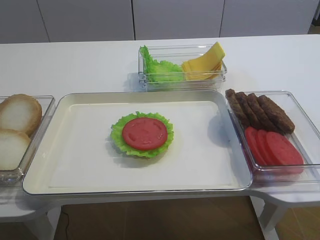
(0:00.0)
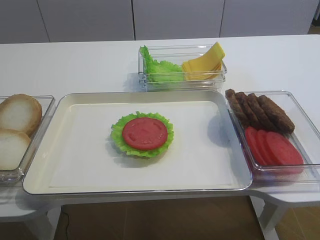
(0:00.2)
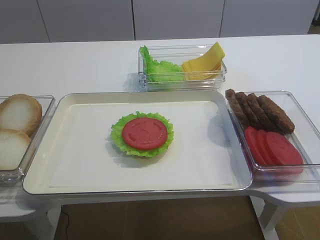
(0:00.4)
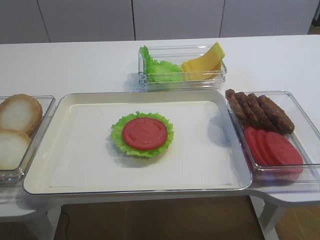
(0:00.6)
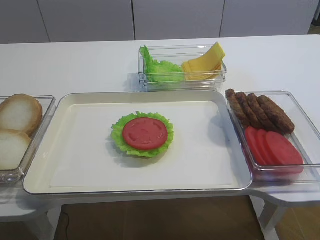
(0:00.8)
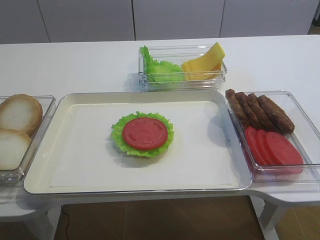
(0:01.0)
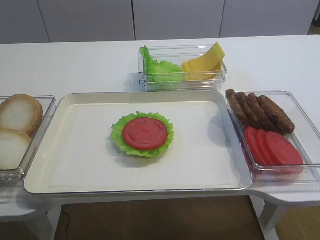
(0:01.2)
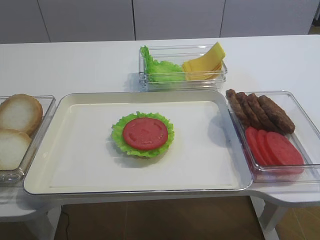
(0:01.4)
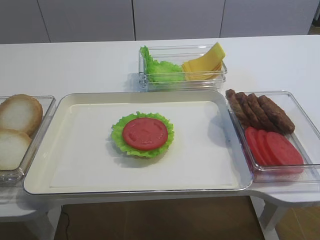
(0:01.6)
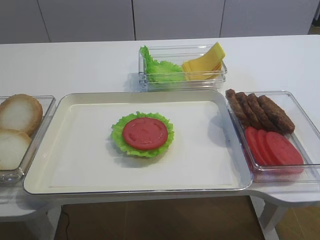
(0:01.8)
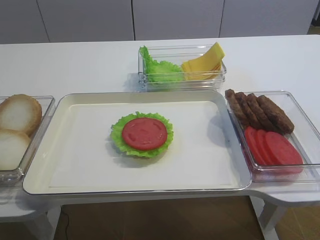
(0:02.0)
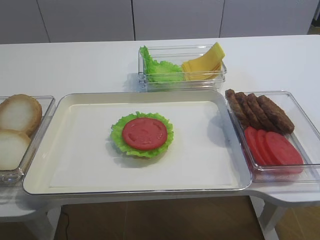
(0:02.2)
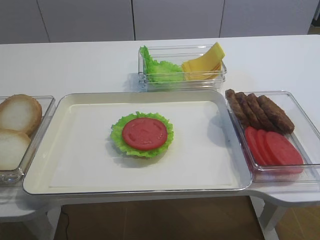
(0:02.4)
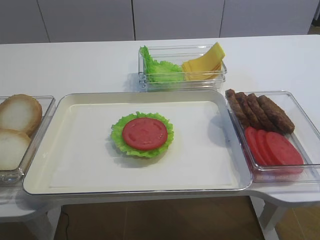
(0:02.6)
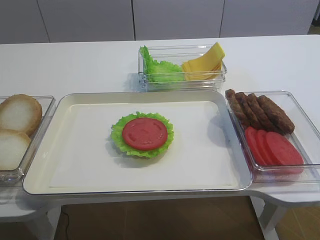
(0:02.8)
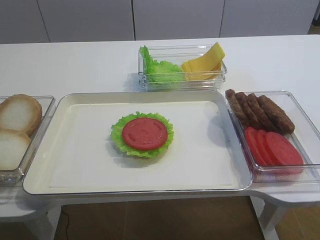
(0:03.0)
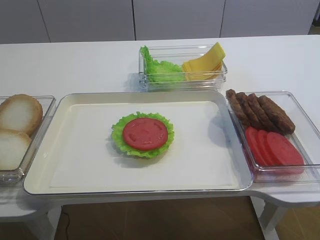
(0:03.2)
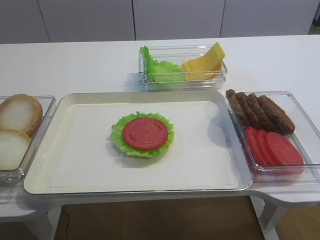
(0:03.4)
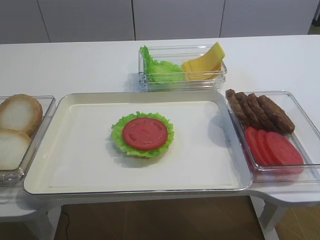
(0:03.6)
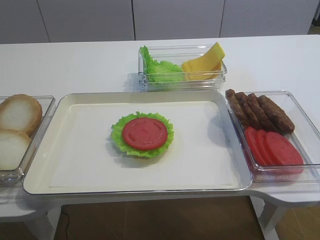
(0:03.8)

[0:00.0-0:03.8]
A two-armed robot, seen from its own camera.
0:00.0 to 0:01.2: The right gripper is displaced backward by approximately 25 cm.

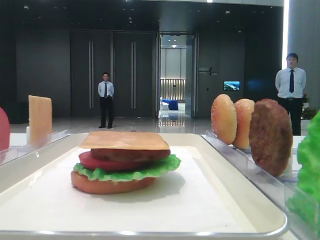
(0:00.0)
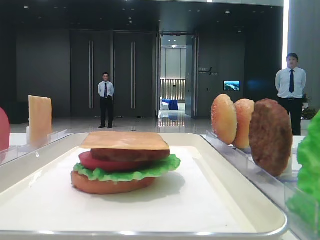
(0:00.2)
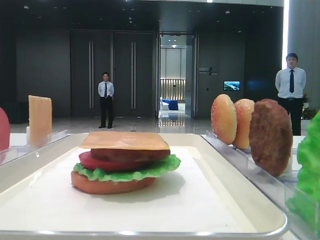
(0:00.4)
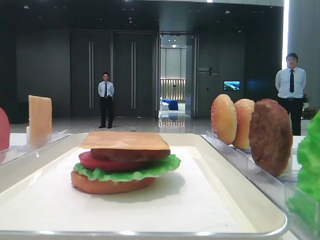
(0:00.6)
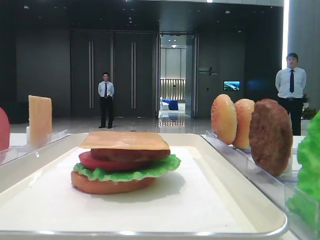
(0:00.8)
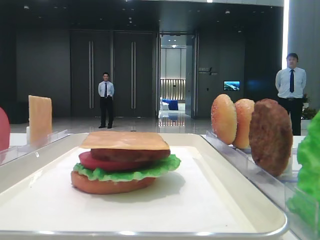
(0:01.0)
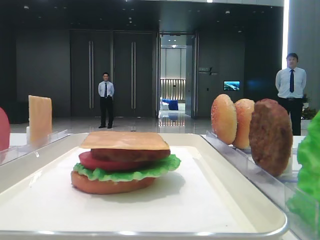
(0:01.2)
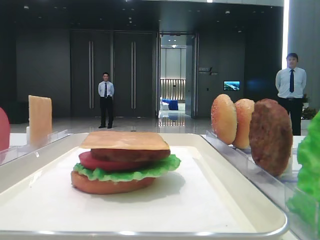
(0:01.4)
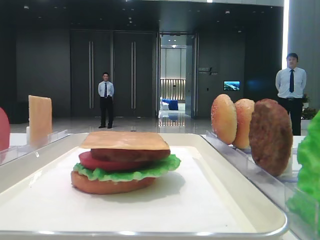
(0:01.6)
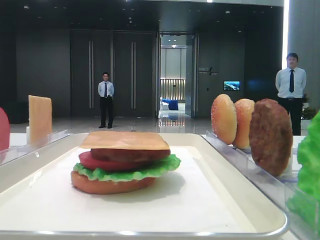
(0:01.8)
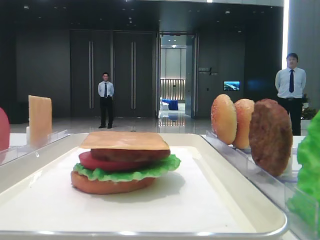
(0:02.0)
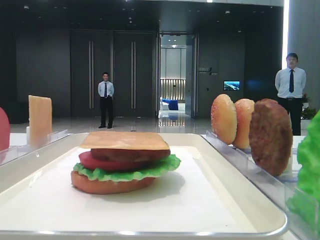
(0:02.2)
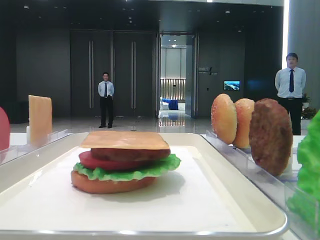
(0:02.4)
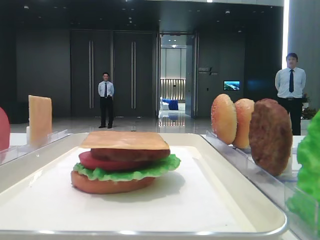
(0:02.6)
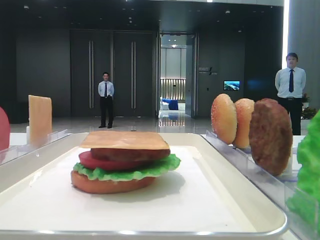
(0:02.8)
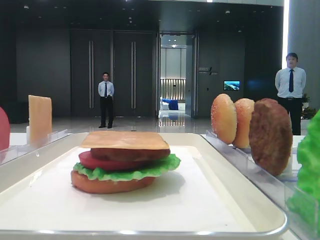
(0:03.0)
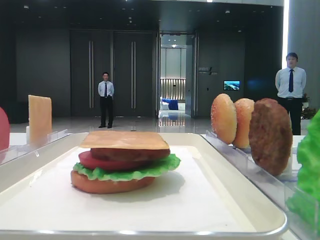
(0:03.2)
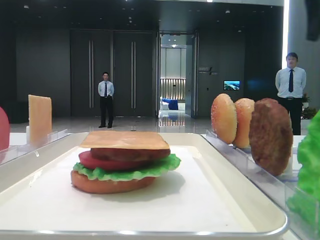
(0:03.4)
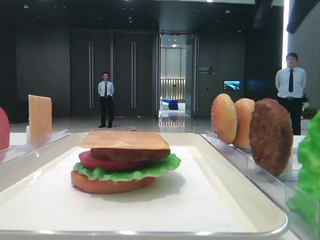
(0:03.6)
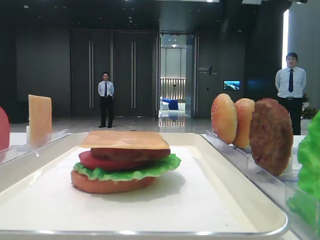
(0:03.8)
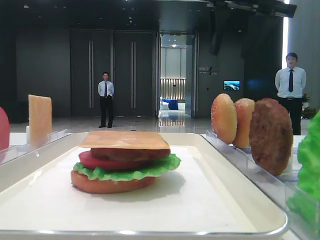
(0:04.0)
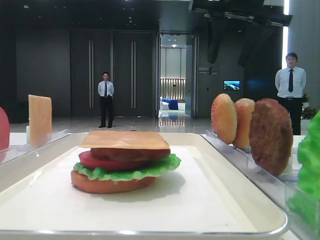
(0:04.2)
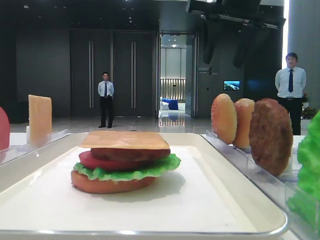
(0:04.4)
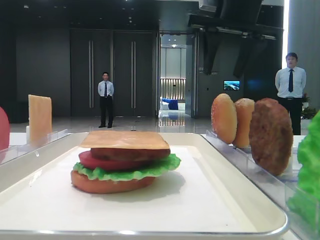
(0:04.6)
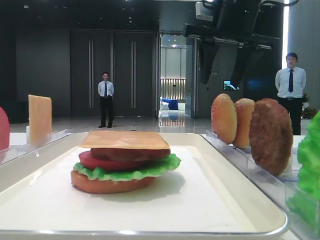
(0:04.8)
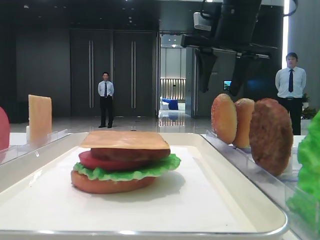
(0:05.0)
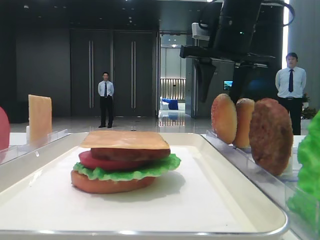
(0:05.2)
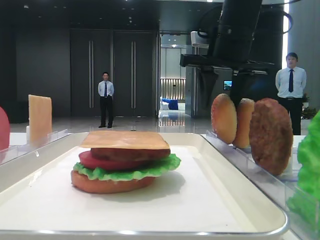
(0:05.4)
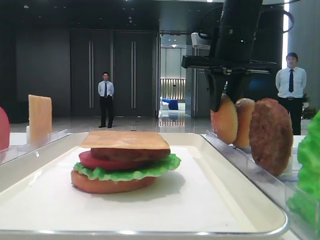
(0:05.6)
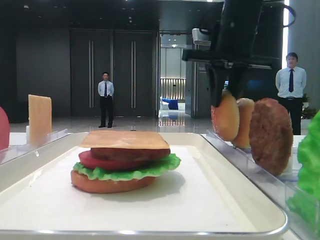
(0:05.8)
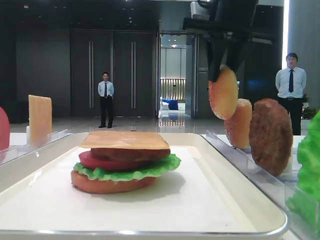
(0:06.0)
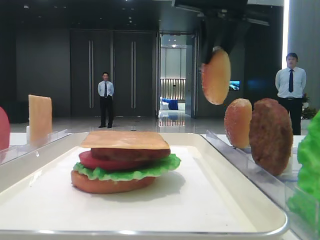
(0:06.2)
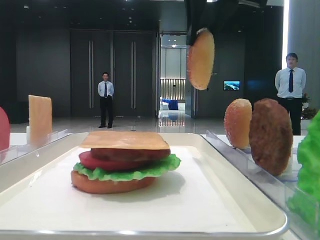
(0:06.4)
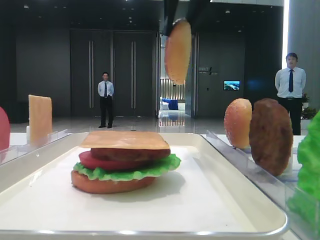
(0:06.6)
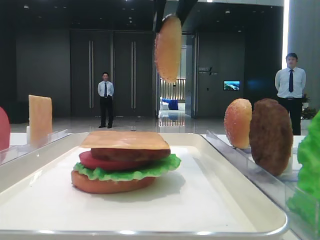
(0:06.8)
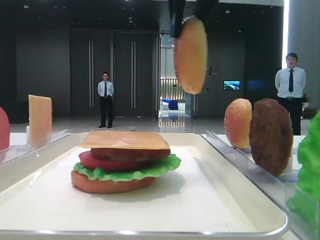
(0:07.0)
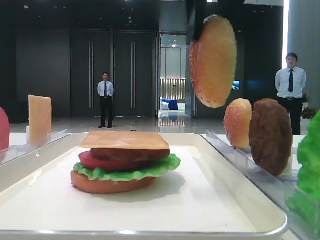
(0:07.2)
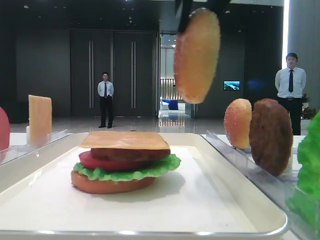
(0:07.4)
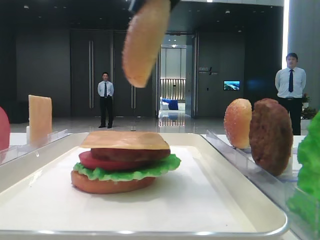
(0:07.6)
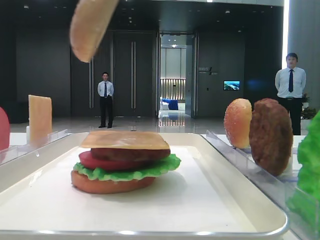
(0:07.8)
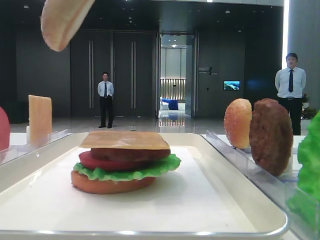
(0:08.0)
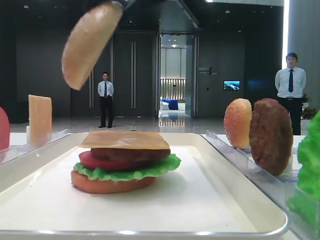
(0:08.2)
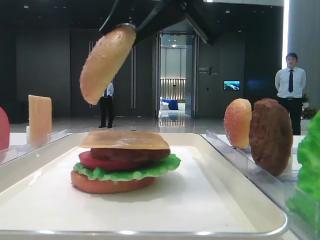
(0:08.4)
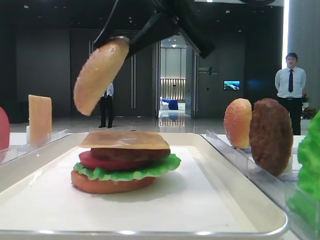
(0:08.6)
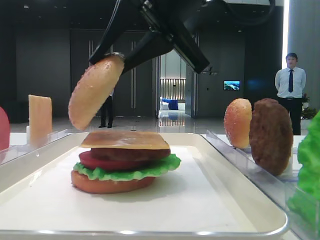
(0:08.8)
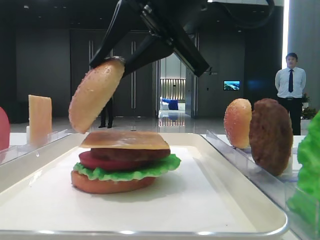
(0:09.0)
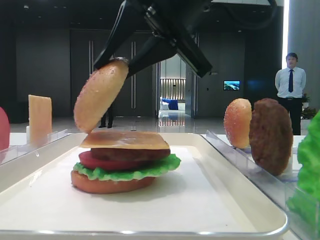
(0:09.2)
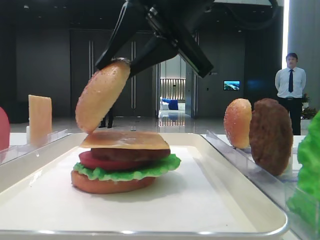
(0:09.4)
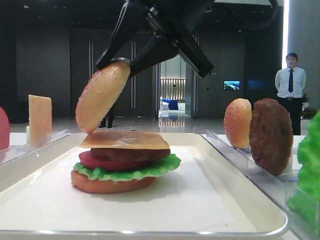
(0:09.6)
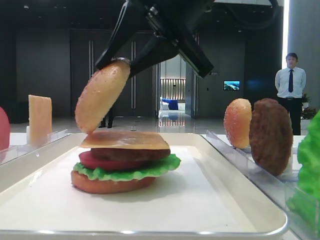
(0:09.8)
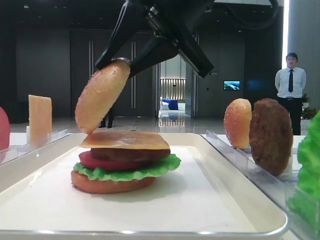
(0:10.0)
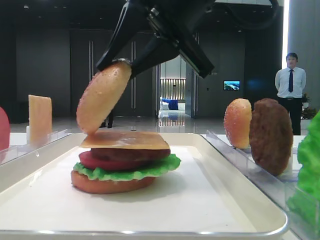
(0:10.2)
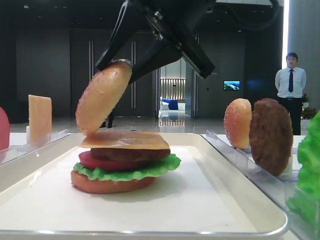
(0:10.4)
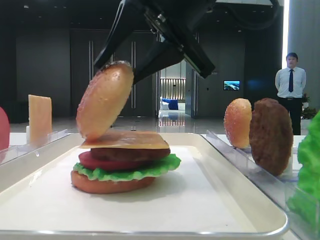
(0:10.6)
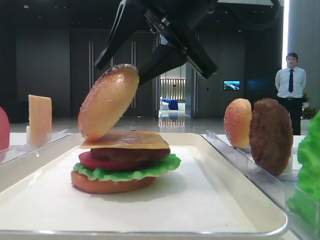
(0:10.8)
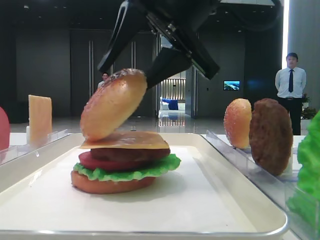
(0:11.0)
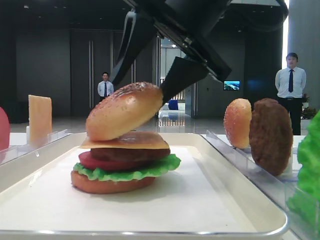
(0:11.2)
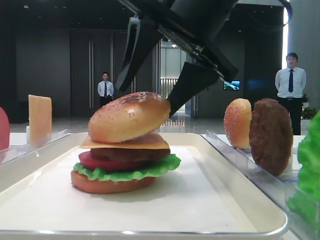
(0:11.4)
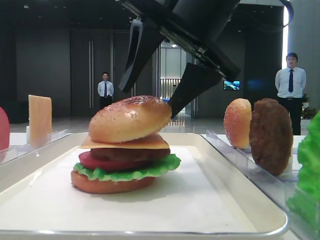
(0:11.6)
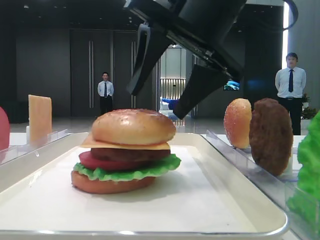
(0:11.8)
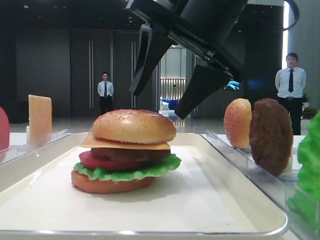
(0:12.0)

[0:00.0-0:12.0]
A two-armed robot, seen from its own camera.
Step, 0:00.0 to 0:05.6: Pick up the top bread slice with the right hand.
Step, 0:05.8 to 0:11.6: Place the top bread slice on the cheese with the right hand.
0:03.0 to 0:04.4: The right gripper goes some 20 cm to the left.
0:04.4 to 0:06.0: The right gripper closes up.
0:06.0 to 0:07.6: The right gripper moves backward and to the left, some 15 cm.
0:07.6 to 0:09.0: The right gripper is displaced downward by about 10 cm.
0:09.0 to 0:10.4: The two grippers keep their place.
0:10.4 to 0:12.0: The right gripper opens up.

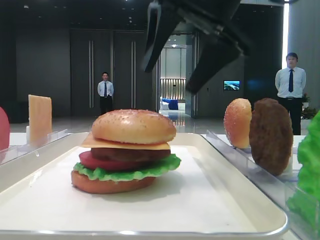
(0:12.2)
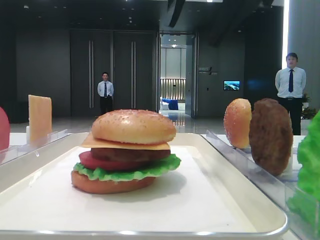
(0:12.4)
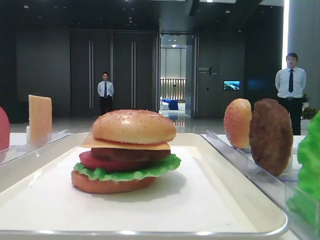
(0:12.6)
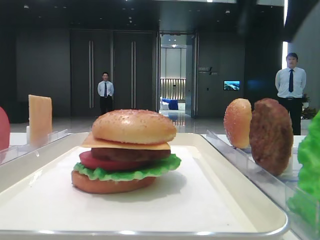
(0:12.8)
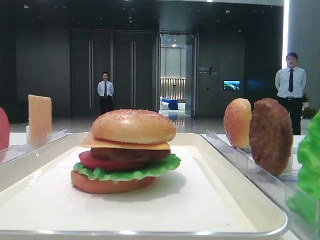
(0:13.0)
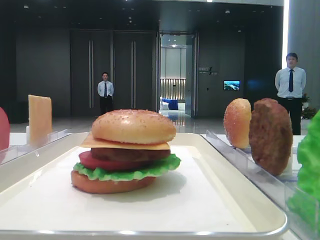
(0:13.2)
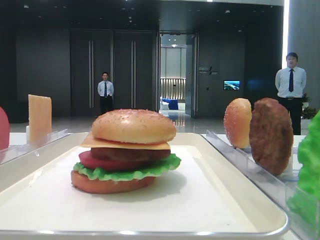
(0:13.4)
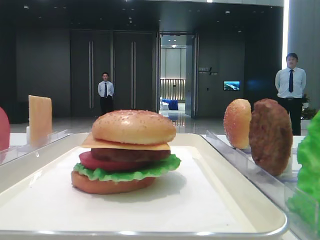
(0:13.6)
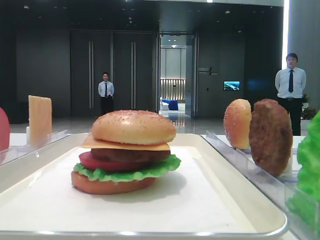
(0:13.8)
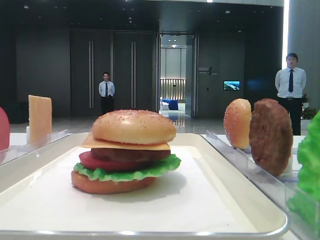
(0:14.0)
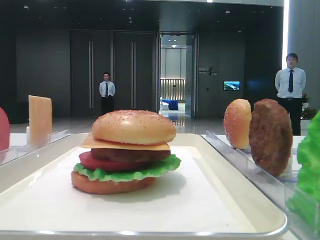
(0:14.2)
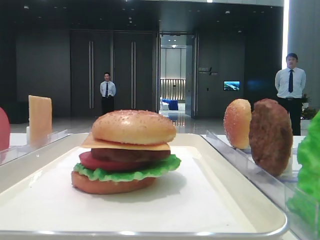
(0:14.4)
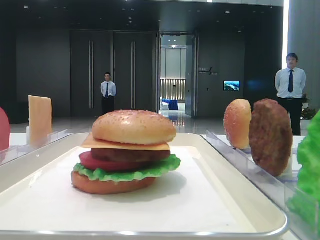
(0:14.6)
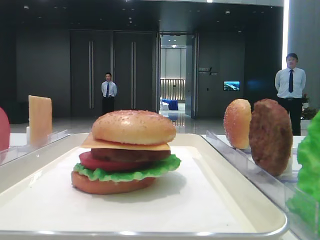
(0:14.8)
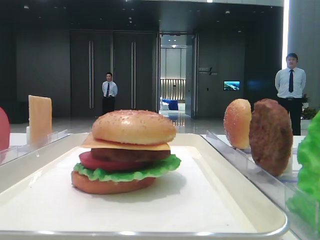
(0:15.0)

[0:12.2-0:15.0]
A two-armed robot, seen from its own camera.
0:12.2 to 0:13.6: The right gripper moves to the right and backward, approximately 30 cm.

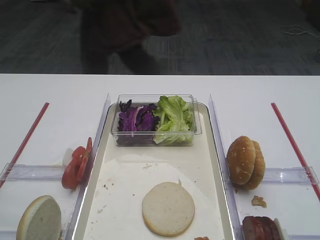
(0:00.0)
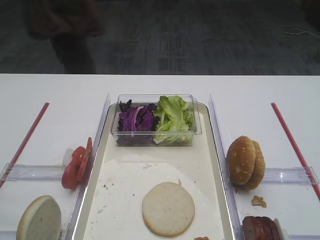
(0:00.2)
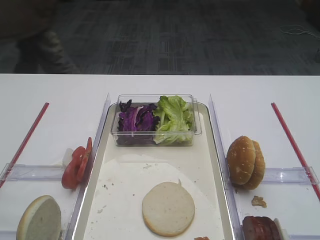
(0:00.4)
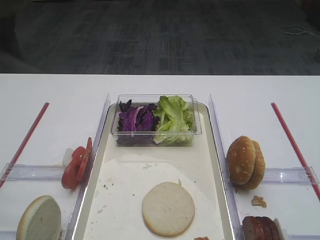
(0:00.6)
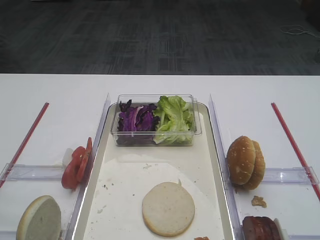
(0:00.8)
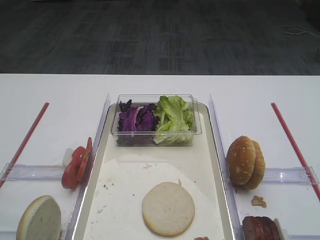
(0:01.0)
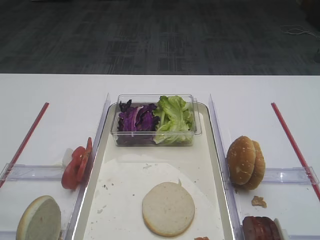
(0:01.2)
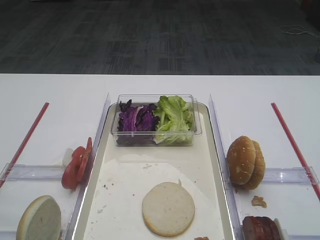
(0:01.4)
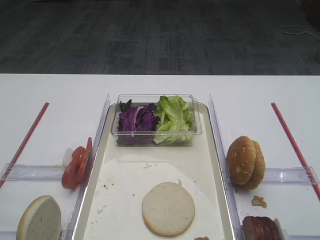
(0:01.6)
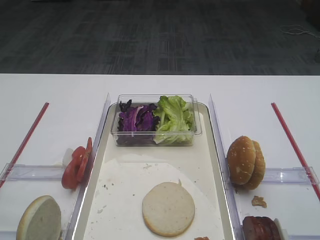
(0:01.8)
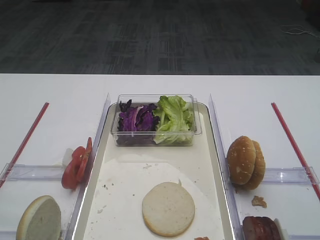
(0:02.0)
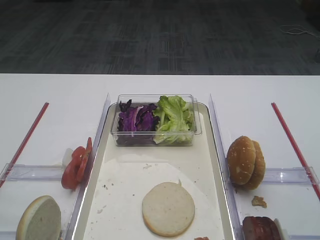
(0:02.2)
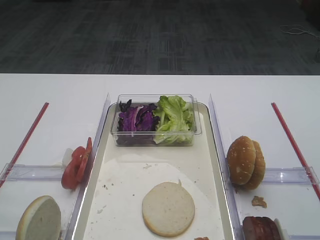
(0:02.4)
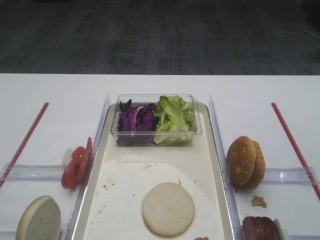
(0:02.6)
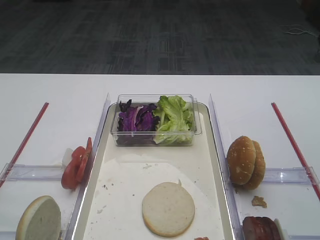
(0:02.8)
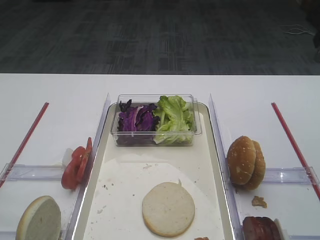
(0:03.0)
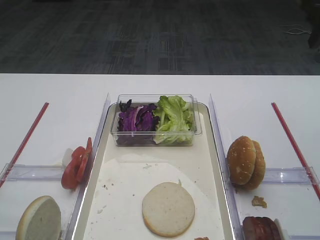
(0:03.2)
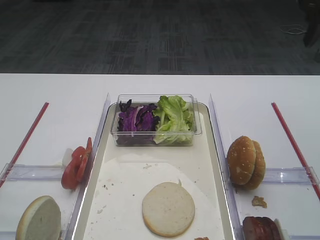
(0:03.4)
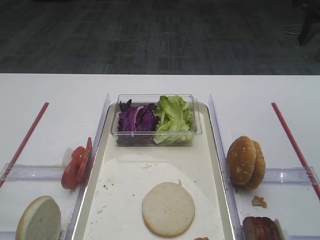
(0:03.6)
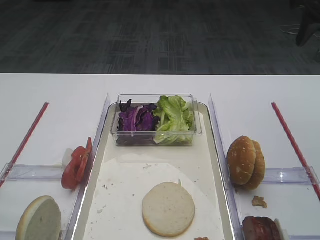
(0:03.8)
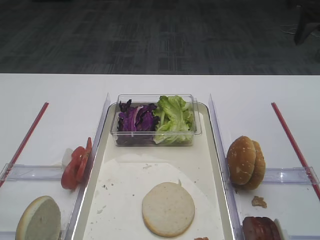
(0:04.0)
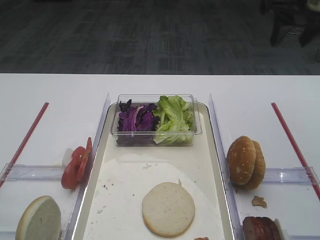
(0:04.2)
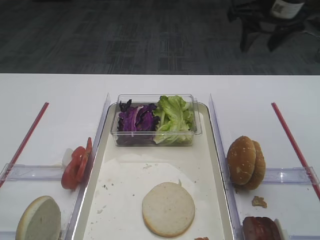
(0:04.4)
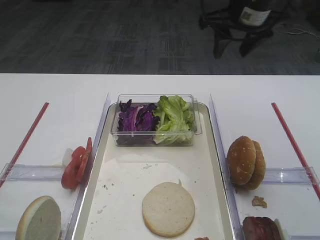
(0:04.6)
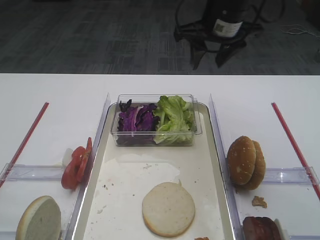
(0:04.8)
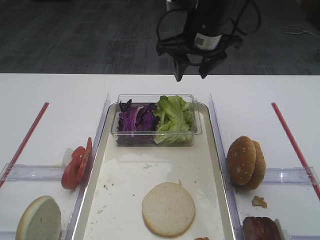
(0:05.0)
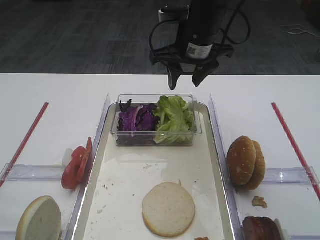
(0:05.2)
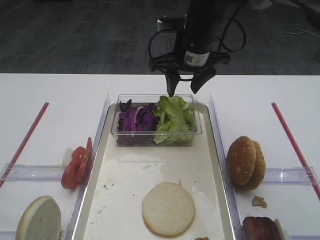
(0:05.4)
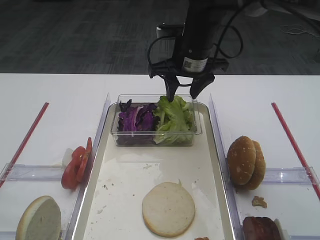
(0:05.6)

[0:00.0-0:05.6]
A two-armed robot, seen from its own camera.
0:04.2 to 0:05.6: The right gripper moves to the left and downward, roughly 20 cm.